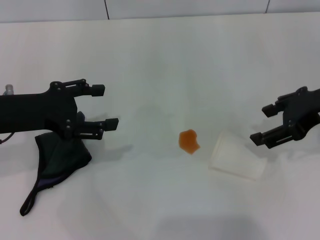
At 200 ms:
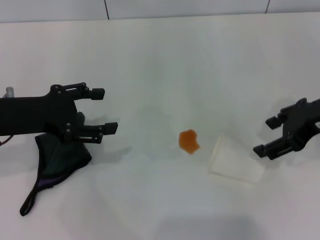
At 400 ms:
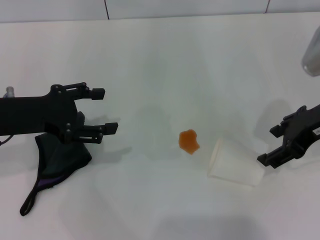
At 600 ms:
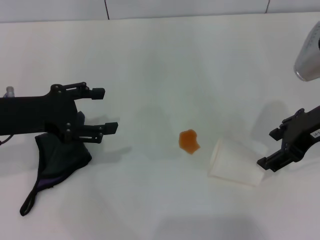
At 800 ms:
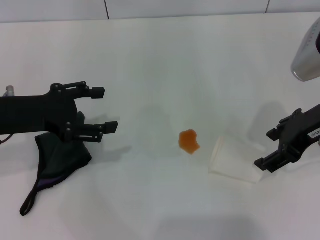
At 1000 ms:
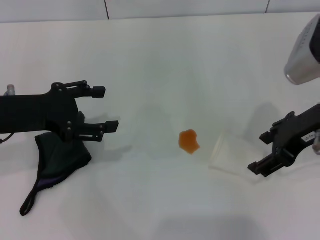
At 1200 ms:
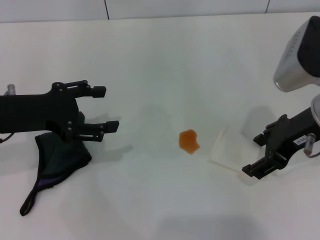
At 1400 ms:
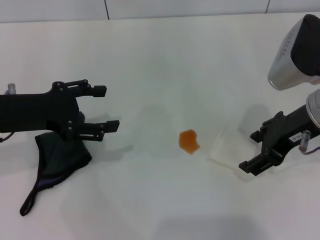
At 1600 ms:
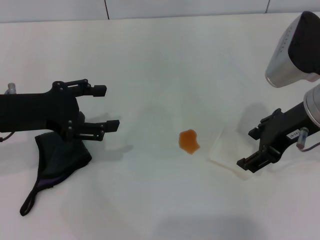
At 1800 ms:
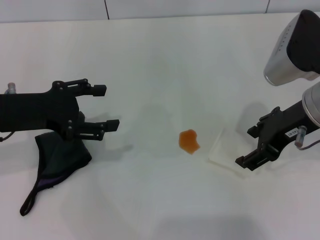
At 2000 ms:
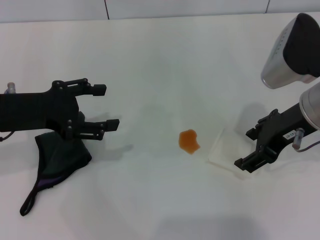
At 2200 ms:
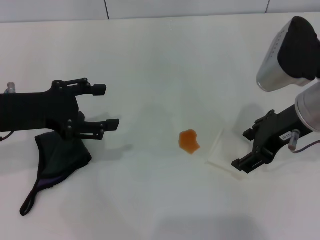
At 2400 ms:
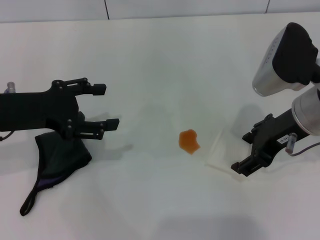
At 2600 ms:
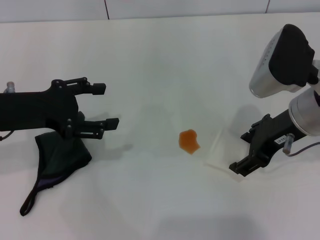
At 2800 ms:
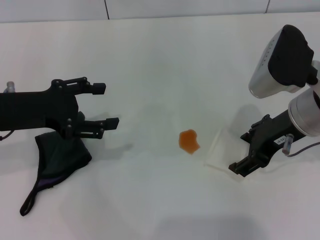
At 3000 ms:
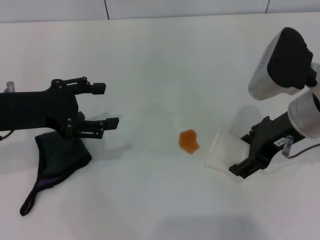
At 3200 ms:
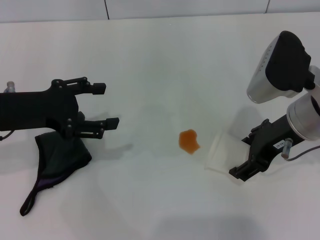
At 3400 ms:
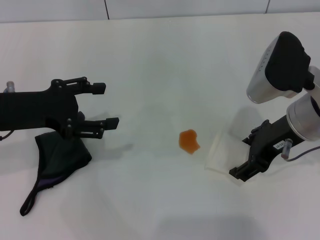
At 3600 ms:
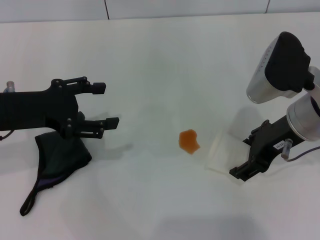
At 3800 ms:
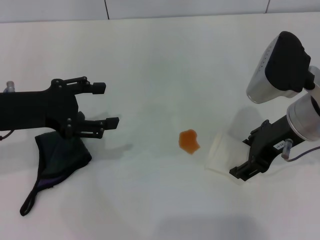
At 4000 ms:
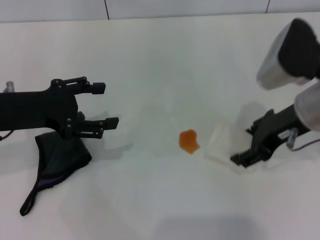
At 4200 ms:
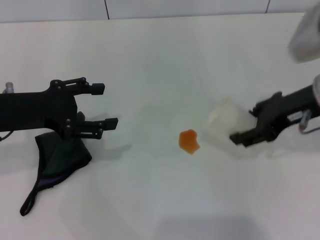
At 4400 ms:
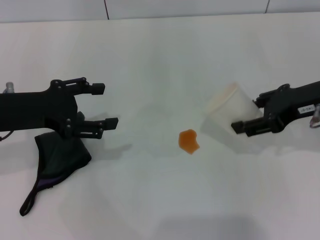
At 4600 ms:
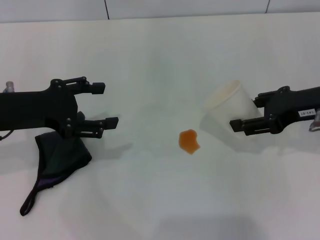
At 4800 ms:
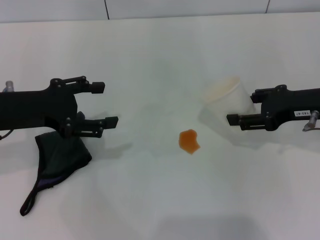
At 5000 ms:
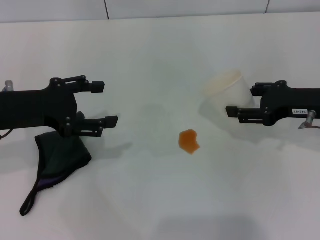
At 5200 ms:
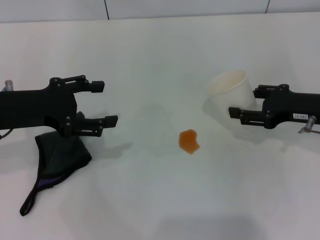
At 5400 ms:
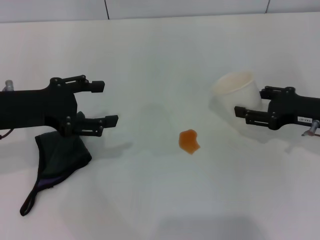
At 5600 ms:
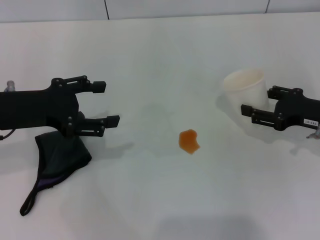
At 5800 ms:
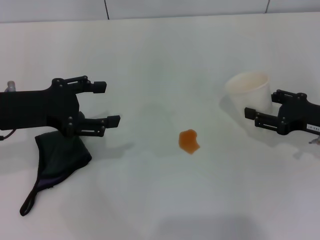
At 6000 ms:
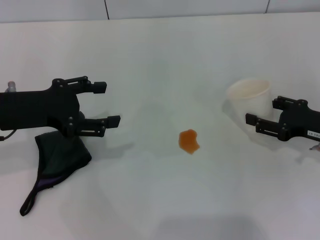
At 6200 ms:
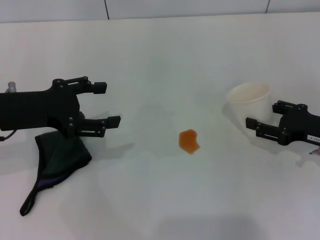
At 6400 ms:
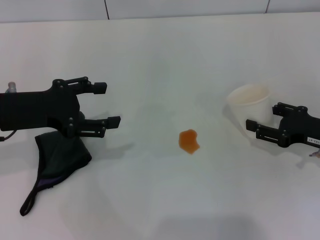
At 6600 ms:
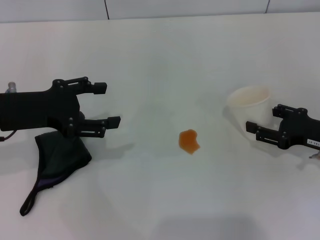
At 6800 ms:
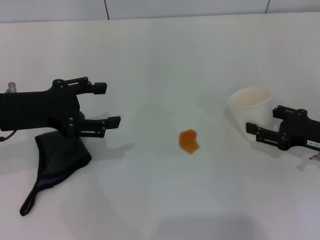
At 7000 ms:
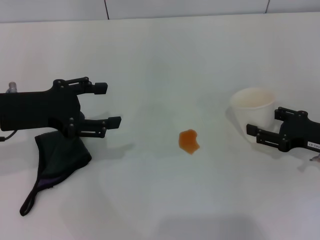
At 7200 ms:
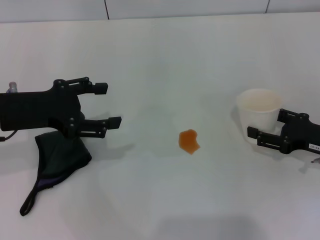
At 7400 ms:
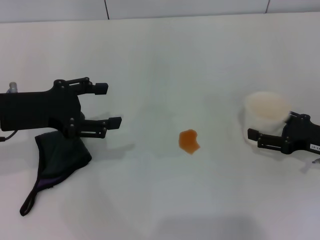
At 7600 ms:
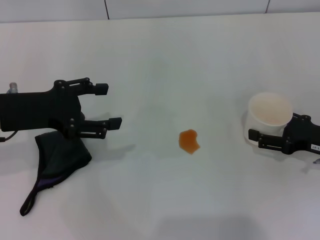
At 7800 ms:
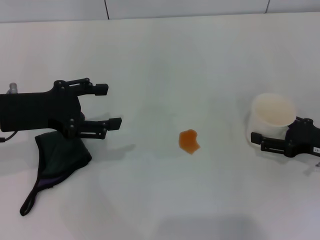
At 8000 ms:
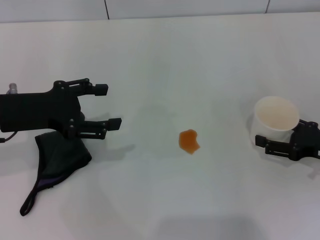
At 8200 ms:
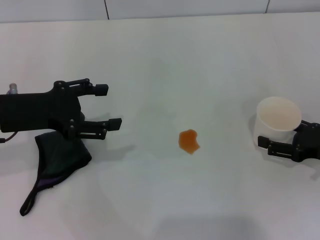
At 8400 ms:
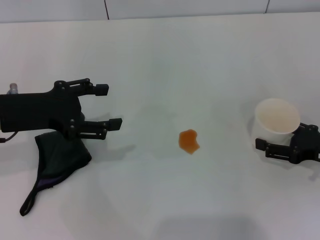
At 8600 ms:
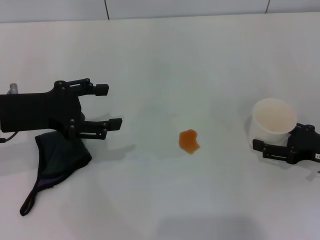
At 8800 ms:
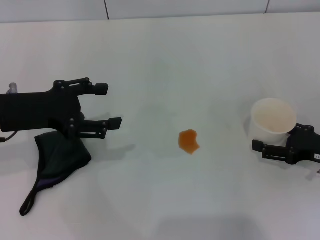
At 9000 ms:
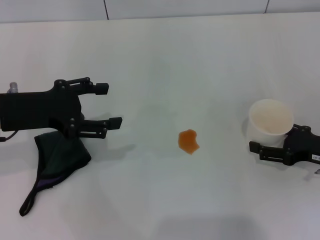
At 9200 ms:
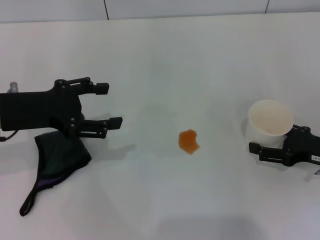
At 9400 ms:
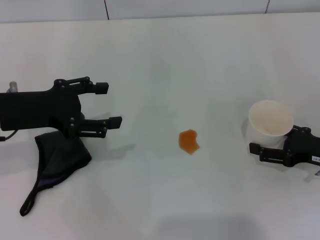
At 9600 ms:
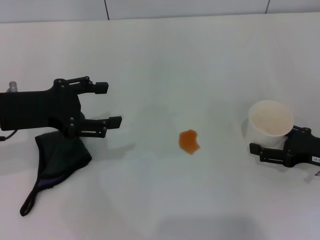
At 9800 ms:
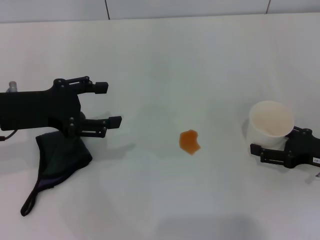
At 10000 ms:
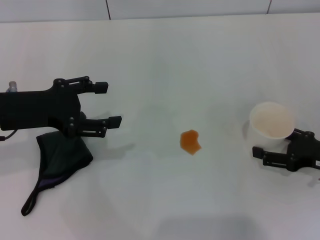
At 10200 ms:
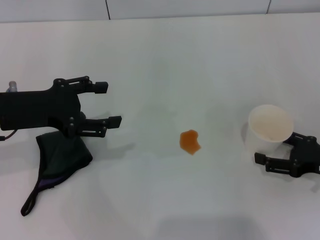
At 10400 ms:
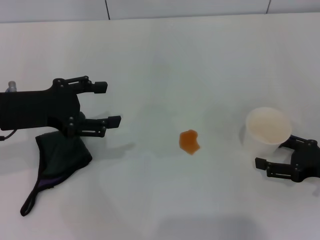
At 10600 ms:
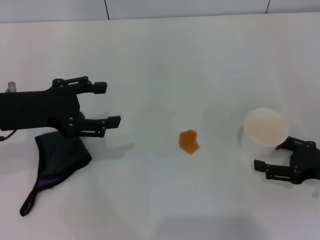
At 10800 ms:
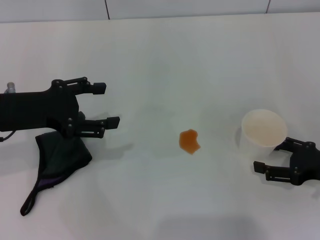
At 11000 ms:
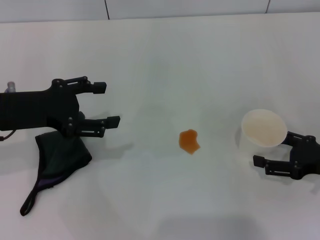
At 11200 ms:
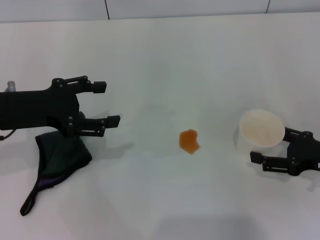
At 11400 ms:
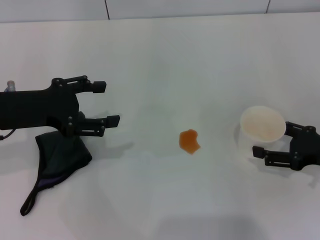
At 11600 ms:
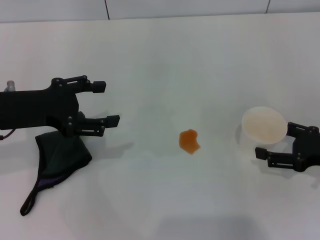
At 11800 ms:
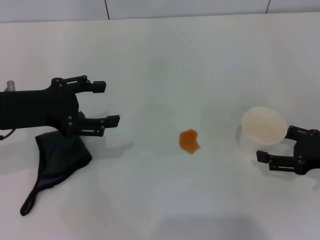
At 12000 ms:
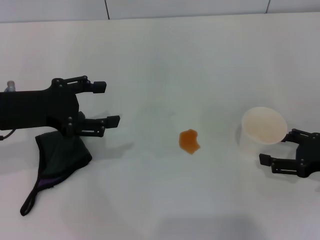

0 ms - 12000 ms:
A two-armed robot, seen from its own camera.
Step, 0 ms - 3400 ms: Grasp the paper cup with the right gripper.
0 ms - 1600 ms: The right gripper moves to the left, approximately 5 cm.
1600 ms - 3000 ms: The grippers move only a little.
3000 ms - 4400 ms: The right gripper travels to the right by roughly 5 cm, and closes up.
4400 ms - 6000 ms: The right gripper is displaced downward and to the right by approximately 15 cm.
6000 ms - 7600 ms: The right gripper opens.
7600 ms - 12000 ms: The grippers stay close to where they were, moving slightly.

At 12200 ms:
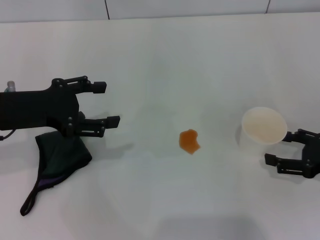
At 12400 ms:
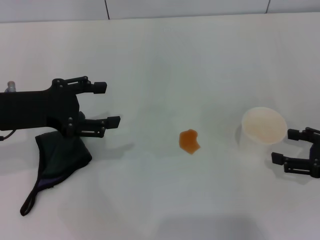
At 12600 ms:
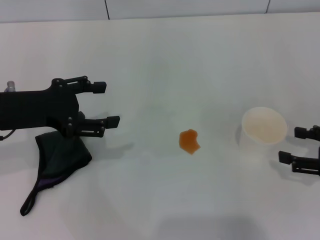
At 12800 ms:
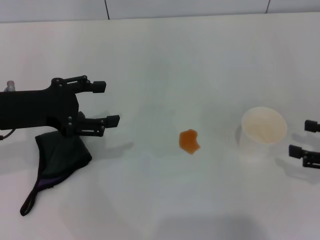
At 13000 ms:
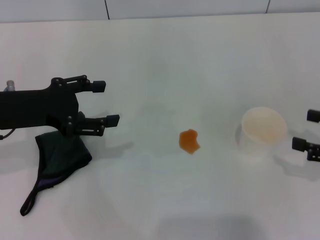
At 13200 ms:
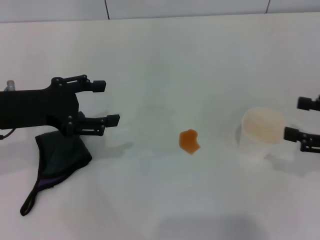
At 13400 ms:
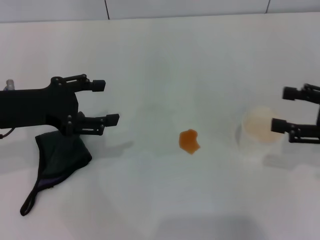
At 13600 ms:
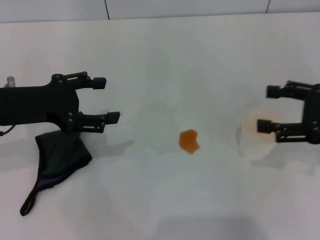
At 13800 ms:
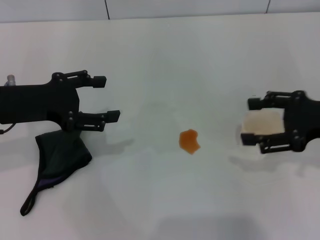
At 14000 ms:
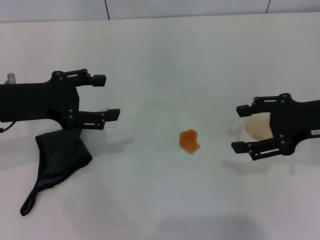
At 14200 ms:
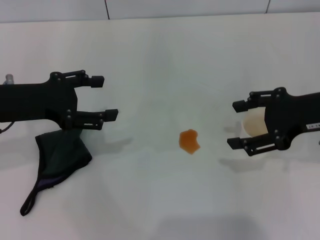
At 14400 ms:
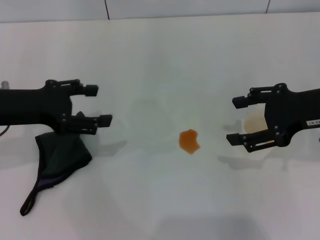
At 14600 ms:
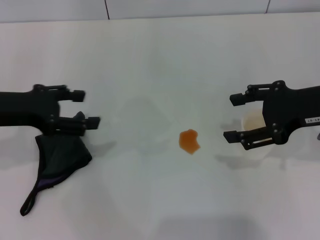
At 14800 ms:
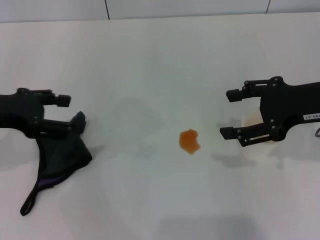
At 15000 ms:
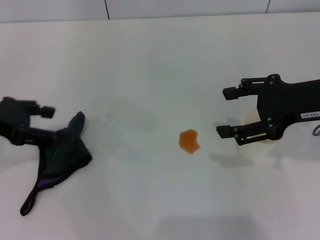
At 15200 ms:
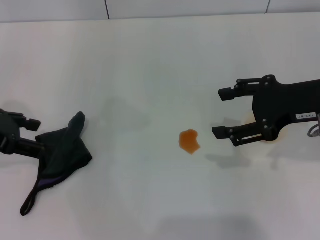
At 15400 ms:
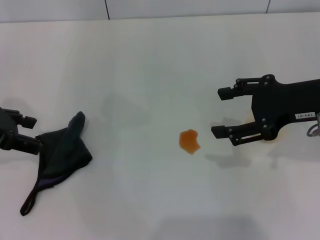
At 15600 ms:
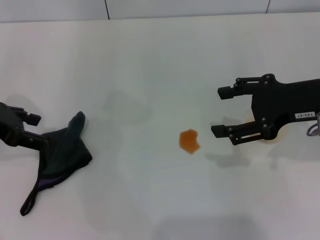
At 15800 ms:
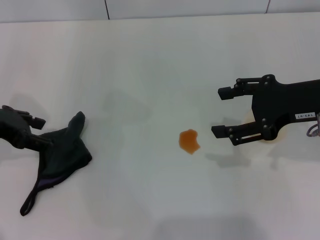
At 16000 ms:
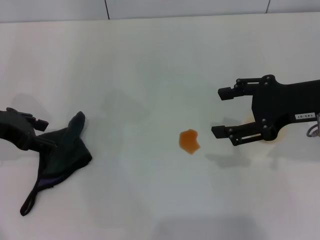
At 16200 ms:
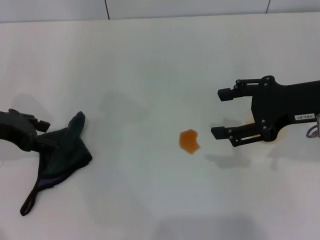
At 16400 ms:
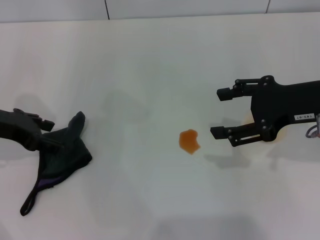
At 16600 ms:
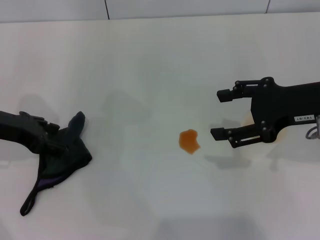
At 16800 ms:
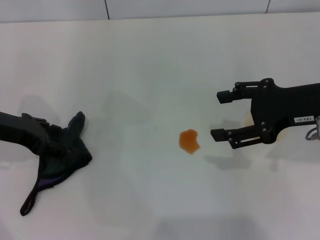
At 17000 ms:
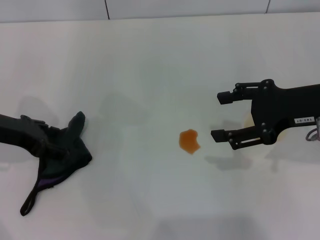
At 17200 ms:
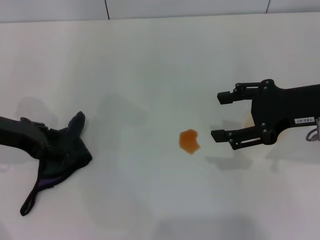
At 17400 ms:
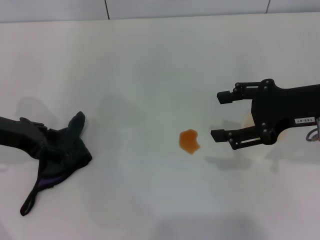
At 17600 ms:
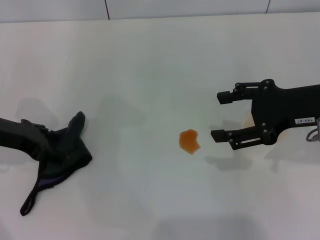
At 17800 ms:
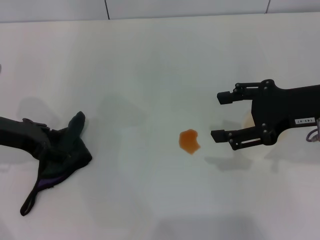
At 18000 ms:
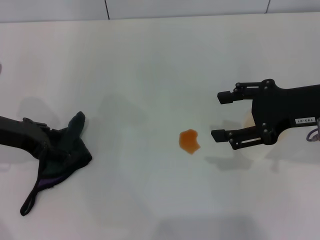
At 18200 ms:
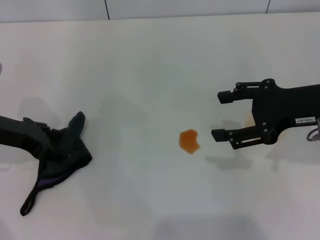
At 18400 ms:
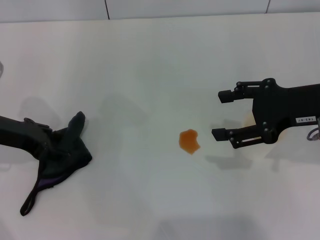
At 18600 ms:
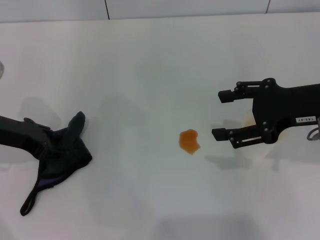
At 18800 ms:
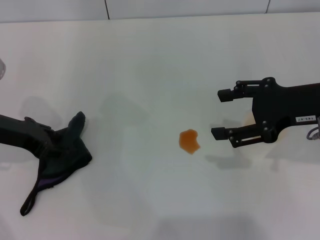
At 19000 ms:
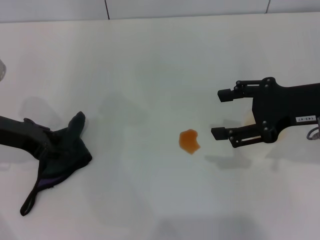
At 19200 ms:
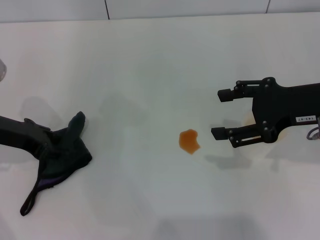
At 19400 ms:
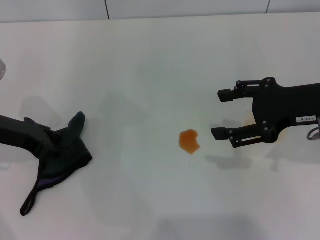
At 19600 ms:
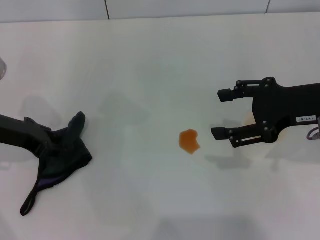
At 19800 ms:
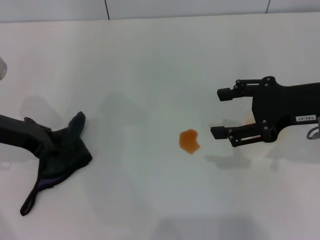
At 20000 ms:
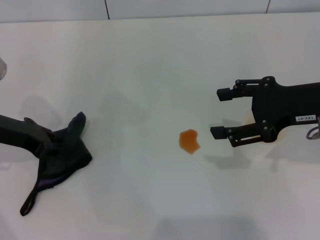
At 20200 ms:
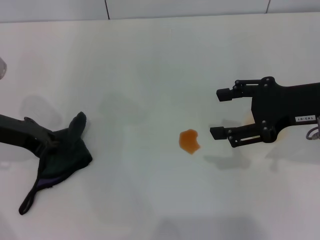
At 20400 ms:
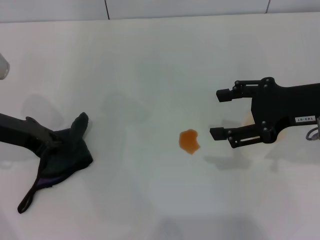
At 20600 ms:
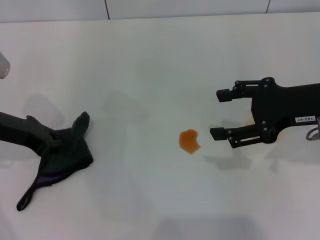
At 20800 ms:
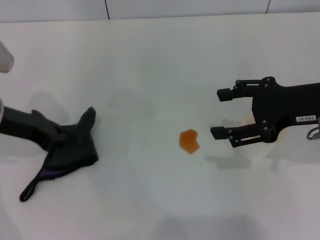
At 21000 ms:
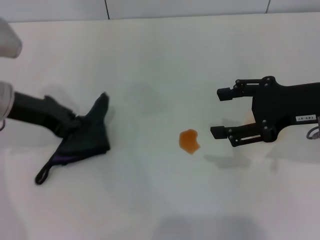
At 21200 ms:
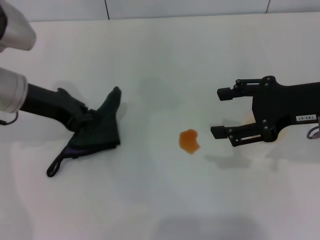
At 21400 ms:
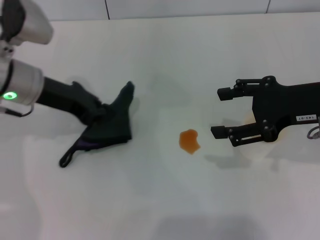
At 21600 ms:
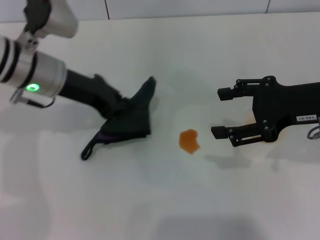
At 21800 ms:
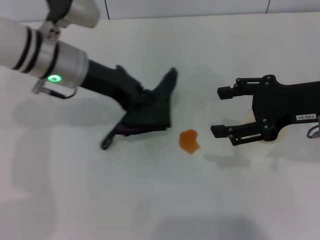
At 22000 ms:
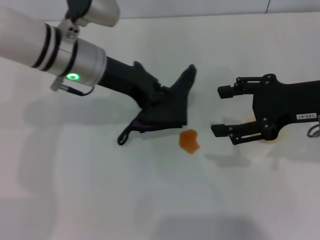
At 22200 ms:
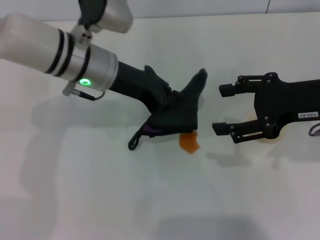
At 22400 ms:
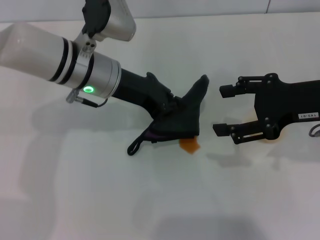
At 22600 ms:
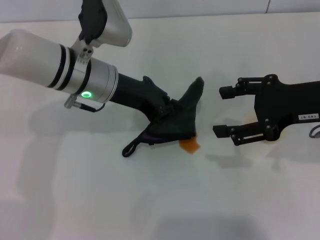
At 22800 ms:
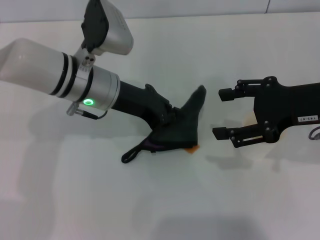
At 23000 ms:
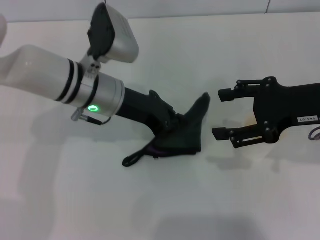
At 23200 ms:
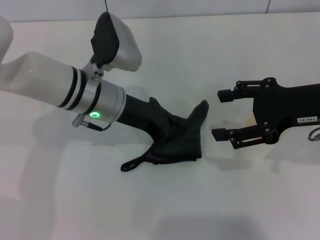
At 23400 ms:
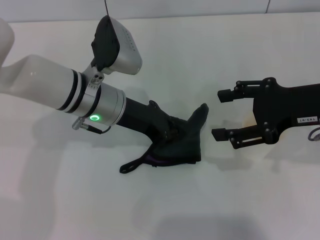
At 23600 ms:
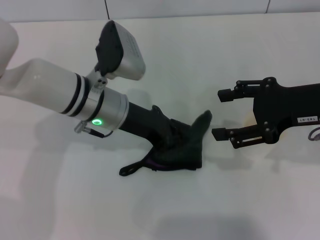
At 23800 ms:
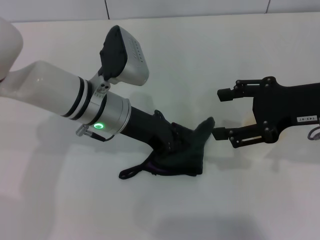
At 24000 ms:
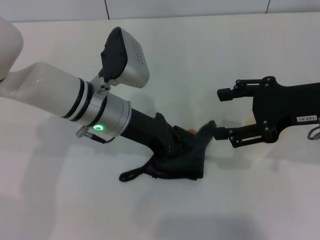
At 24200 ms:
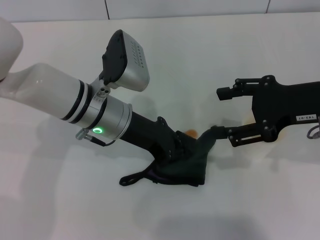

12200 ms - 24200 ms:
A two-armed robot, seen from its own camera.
Step, 12600 ms - 20600 ms: Grasp the rag with the left gripper.
12200 ms - 13800 ms: The right gripper heads upward, covering approximately 10 cm.
13800 ms - 15200 ms: The left gripper travels to the left by approximately 5 cm. The right gripper changes place by approximately 5 cm.
15200 ms - 16600 ms: The left gripper changes place by approximately 5 cm.
16600 ms - 18200 ms: Neither gripper changes place.
19800 ms - 21200 ms: The left gripper moves approximately 5 cm, and closes.
21200 ms - 22600 ms: The left gripper shifts roughly 10 cm to the right.
